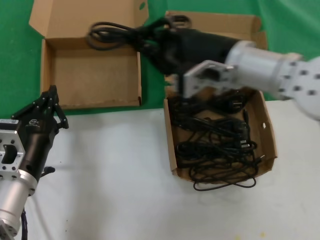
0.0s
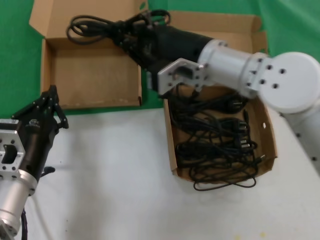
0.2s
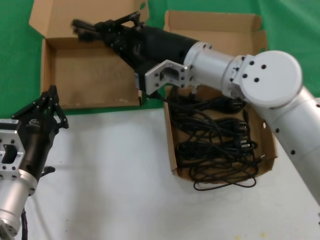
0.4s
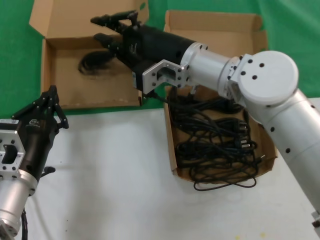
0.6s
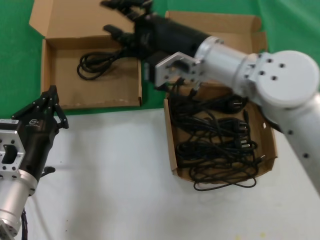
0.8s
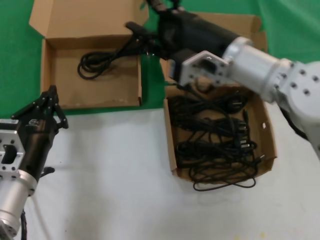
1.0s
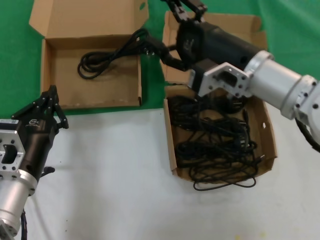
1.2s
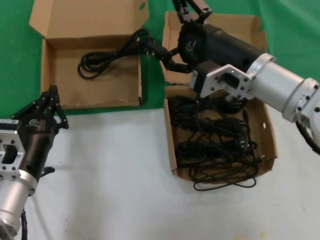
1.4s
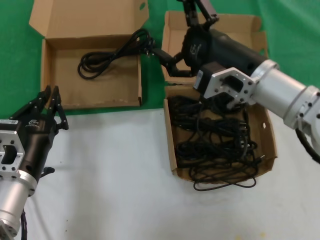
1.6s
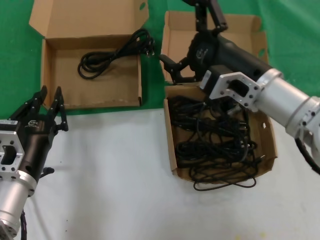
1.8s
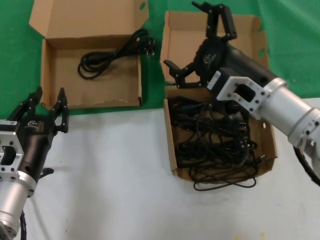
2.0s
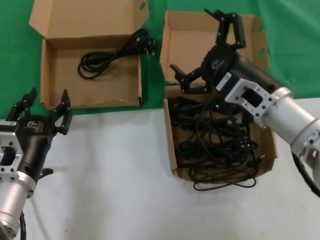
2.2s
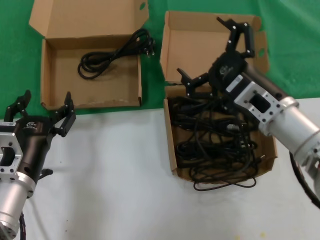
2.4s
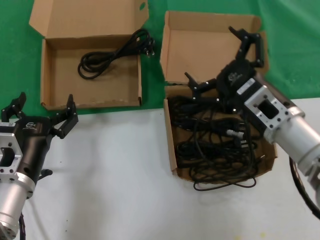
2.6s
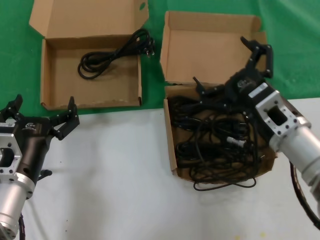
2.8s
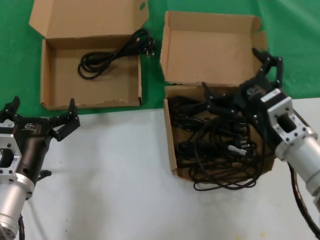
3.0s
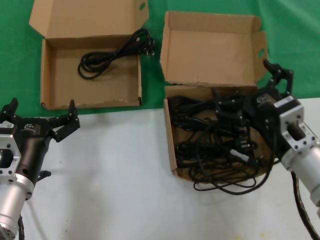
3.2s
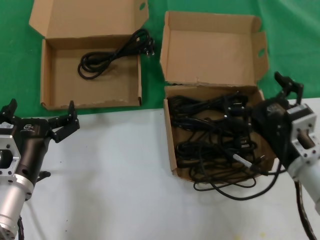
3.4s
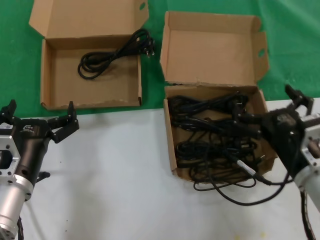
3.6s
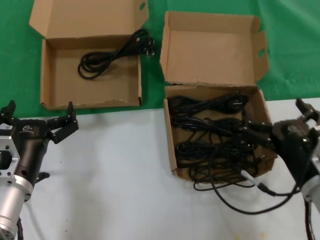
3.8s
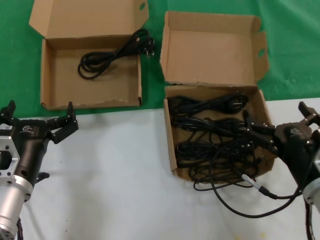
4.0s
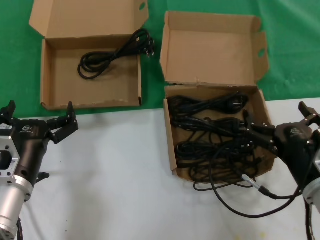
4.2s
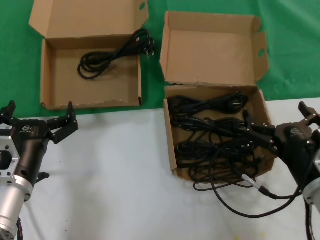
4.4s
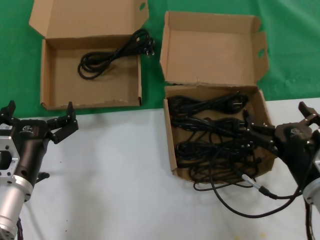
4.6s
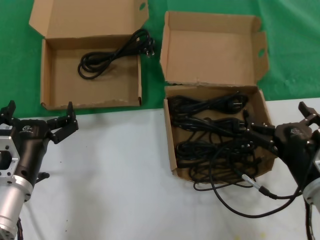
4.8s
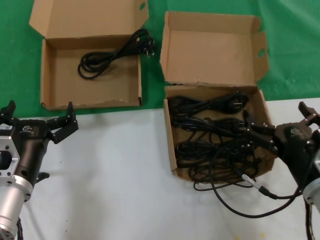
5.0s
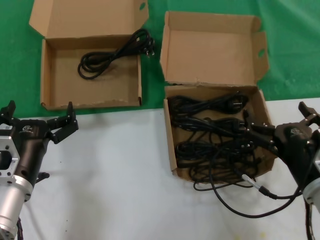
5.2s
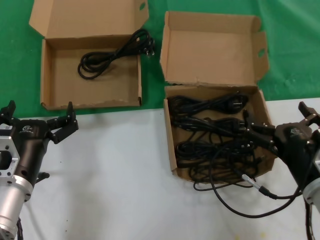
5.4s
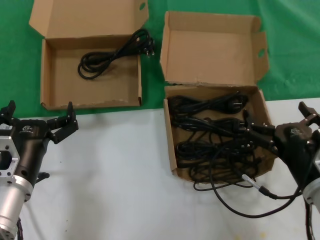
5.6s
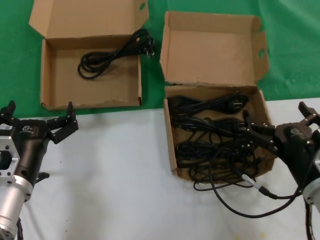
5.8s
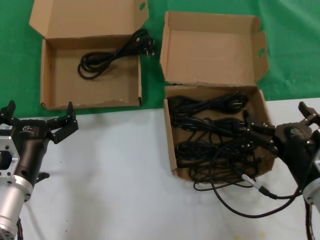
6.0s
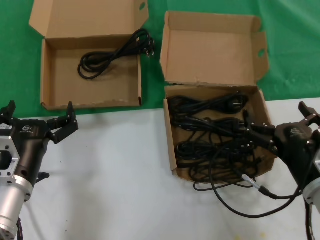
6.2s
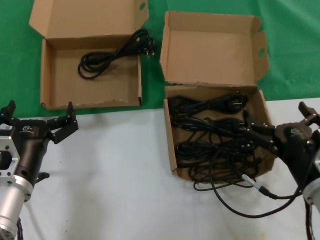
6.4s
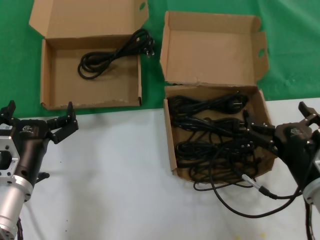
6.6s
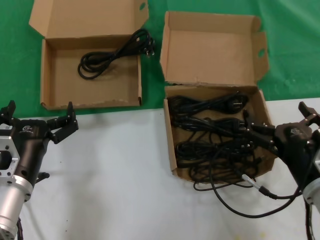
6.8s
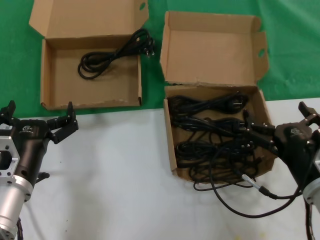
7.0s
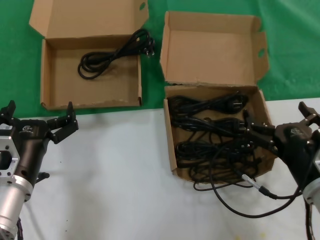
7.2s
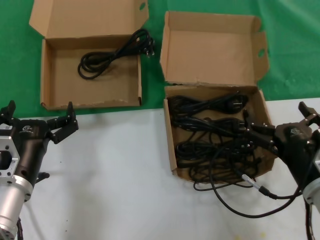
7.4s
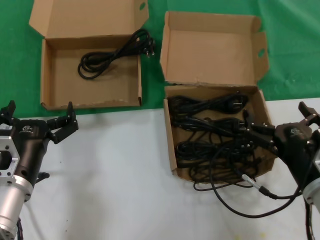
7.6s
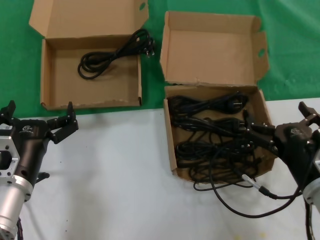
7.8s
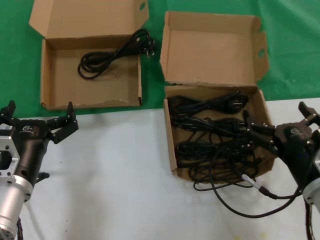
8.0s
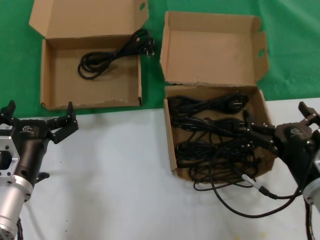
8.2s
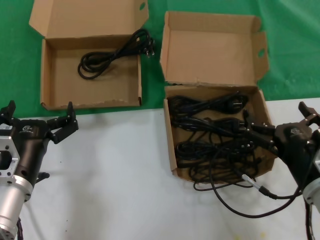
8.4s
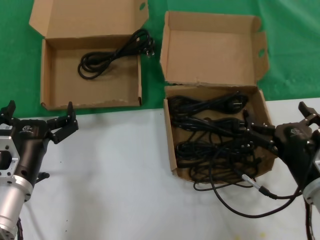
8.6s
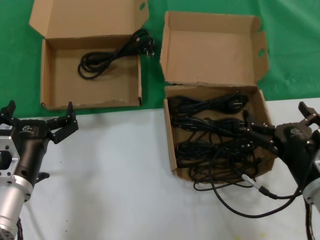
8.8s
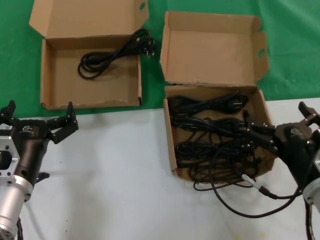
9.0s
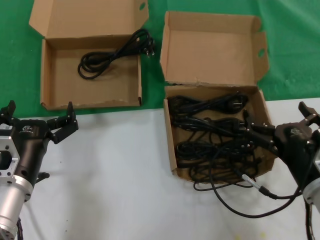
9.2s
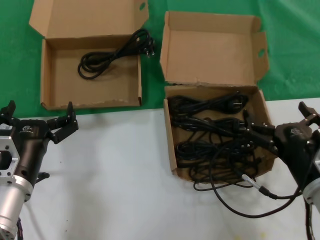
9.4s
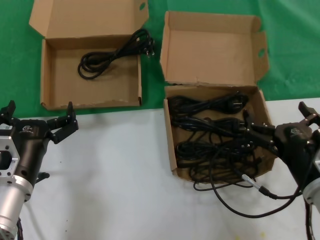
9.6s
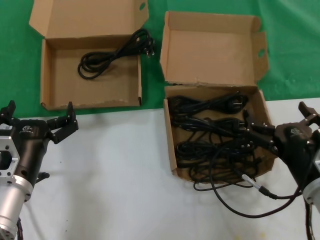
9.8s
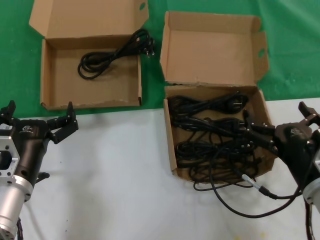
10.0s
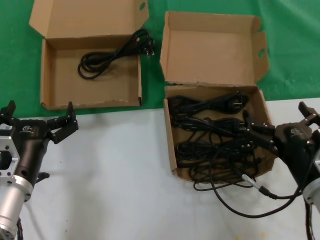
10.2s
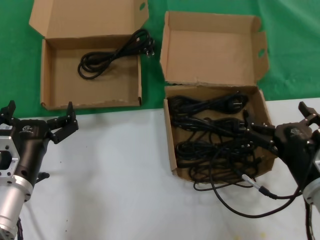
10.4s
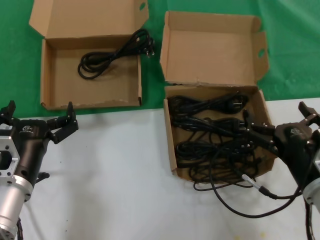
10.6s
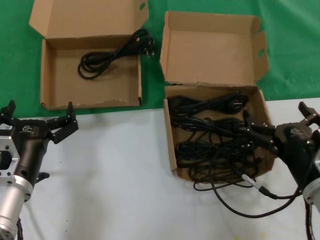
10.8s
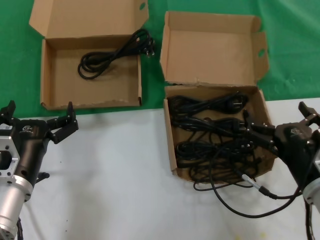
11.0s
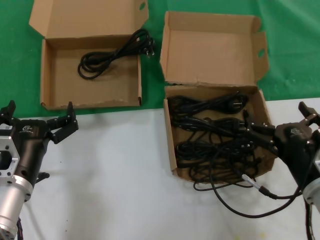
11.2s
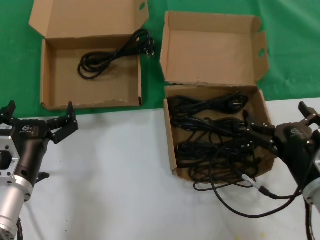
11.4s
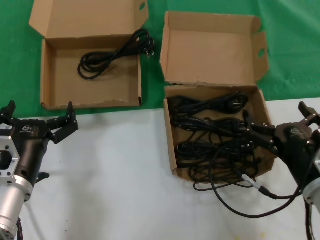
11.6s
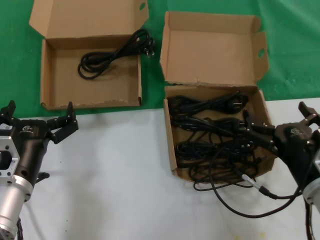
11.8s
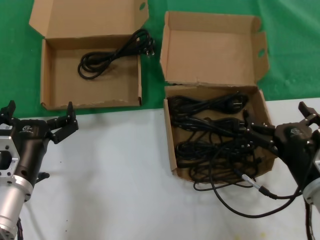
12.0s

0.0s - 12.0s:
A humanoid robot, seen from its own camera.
Task of the whole recording: take the parts from the box containing them and put them into an empty box.
0.0s - 1.6s: The right hand moves approximately 5 cm to the left and comes back.
1.6s - 3.0s: The right hand is displaced downward, backward and to the right by about 15 cm.
3.0s - 4.4s: The right hand goes approximately 10 cm downward and backward.
4.4s - 12.0s: The two hands keep their place.

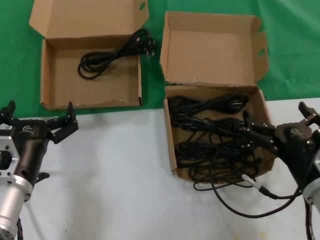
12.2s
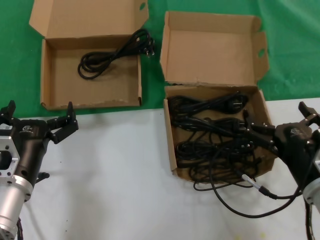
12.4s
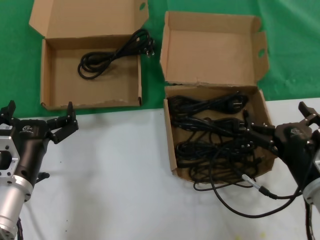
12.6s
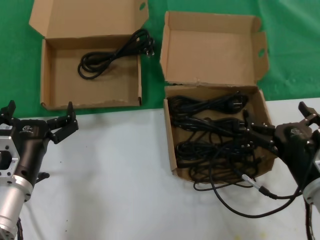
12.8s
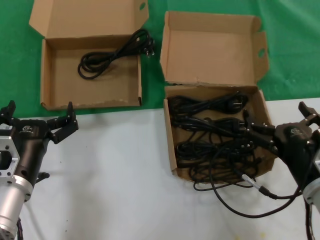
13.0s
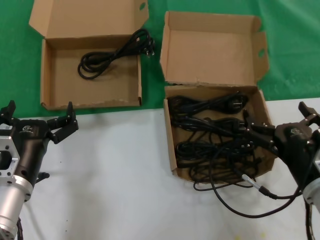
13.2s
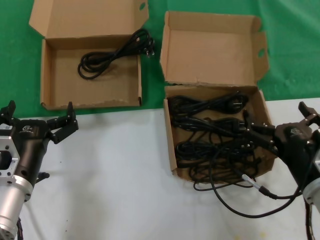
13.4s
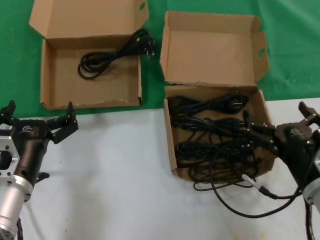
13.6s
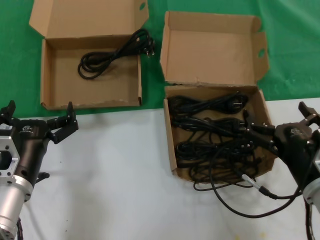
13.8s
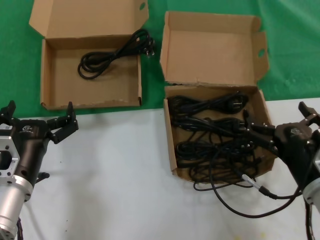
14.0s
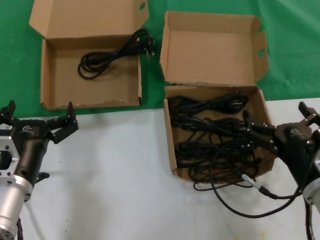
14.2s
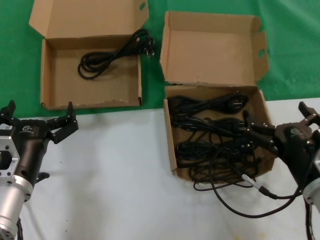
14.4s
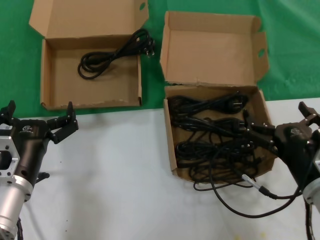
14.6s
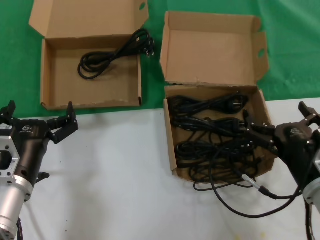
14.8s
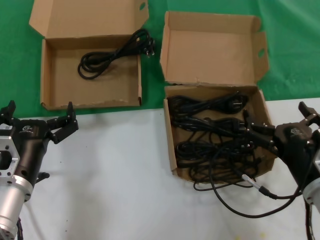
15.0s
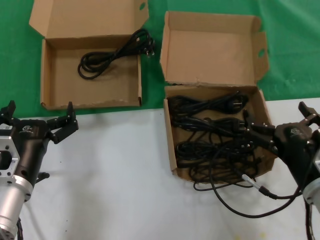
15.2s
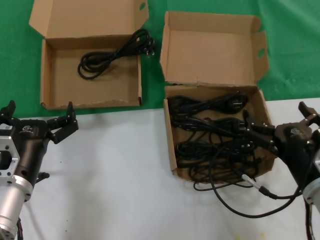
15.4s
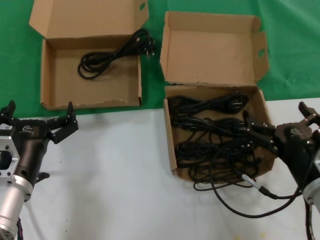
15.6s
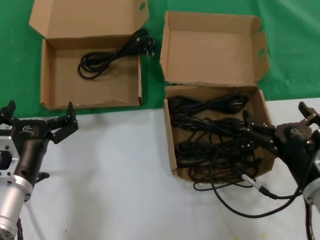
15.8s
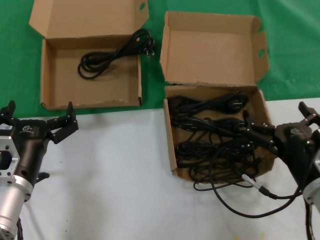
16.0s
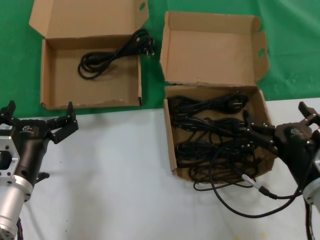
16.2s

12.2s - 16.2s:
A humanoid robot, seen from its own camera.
Task of the whole recording: take the parts from the box containing them and put them into an empty box.
12.2s - 16.2s: Both hands stay put.

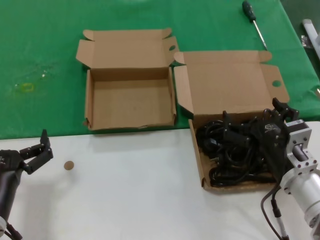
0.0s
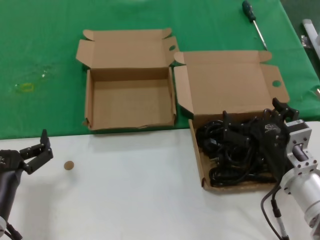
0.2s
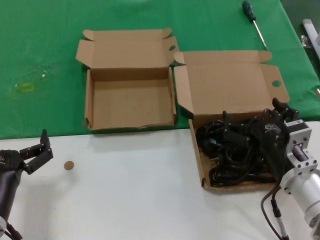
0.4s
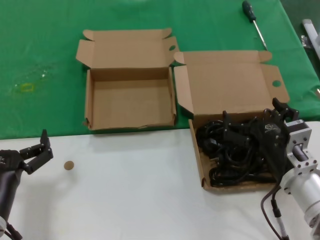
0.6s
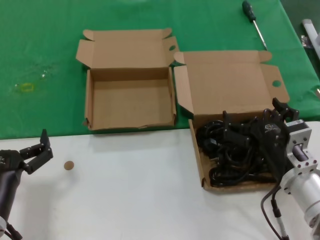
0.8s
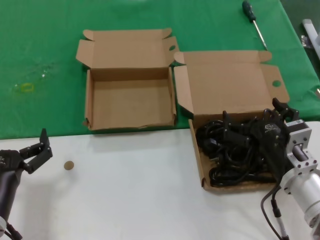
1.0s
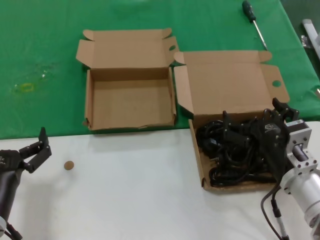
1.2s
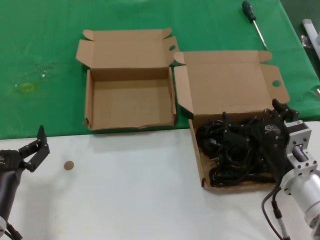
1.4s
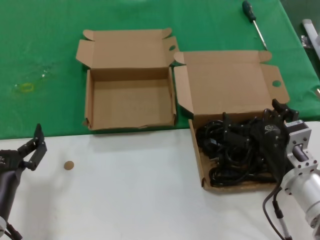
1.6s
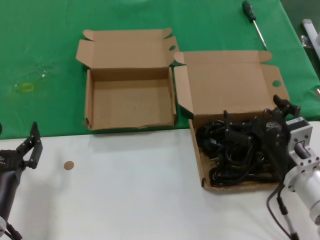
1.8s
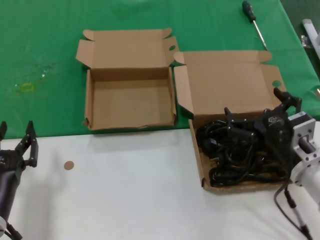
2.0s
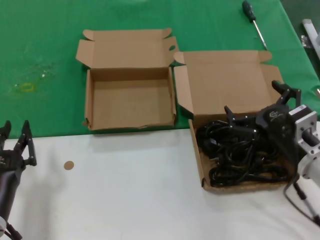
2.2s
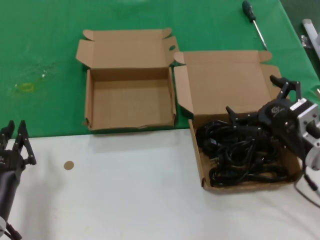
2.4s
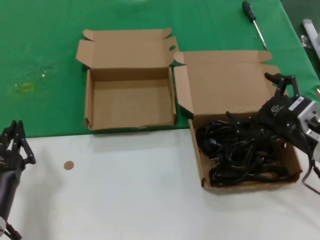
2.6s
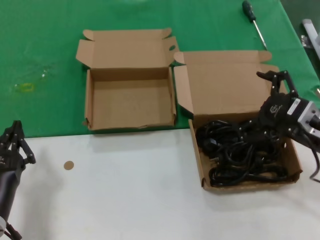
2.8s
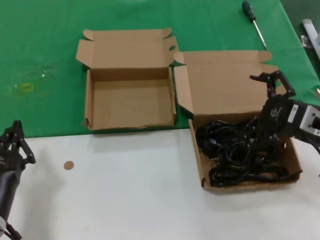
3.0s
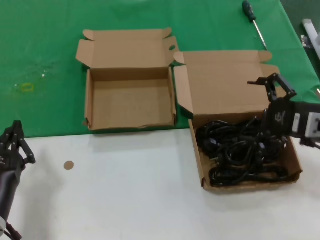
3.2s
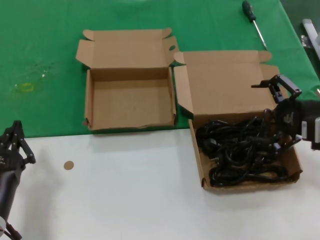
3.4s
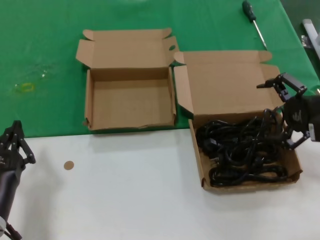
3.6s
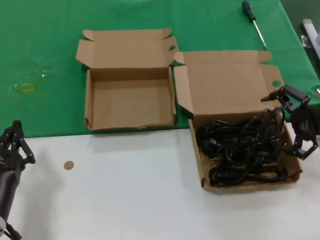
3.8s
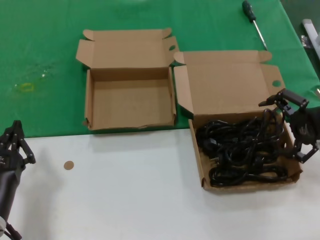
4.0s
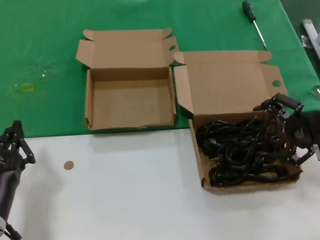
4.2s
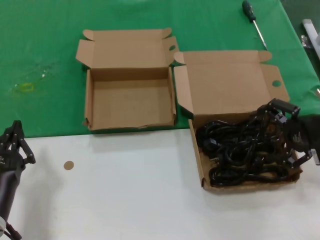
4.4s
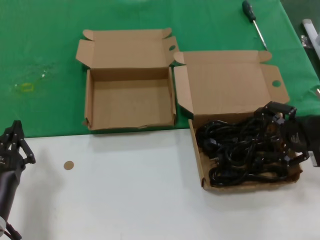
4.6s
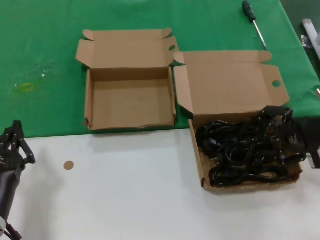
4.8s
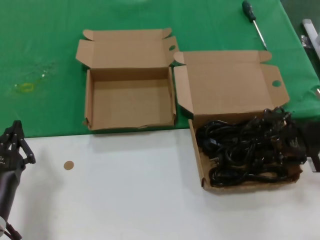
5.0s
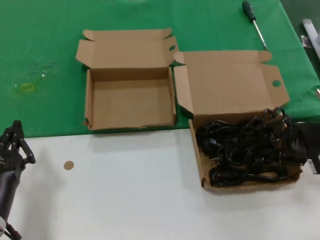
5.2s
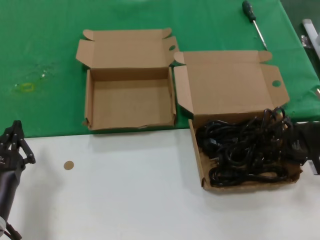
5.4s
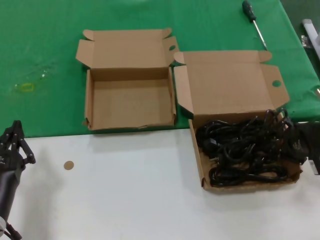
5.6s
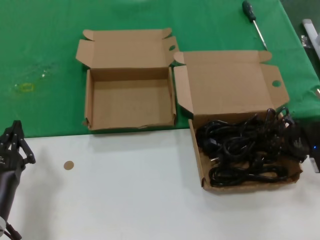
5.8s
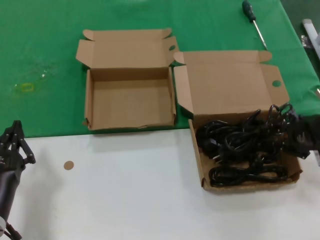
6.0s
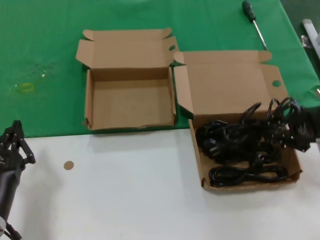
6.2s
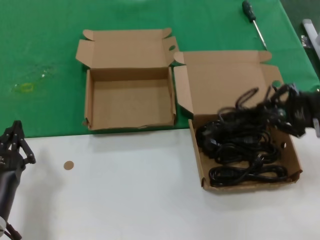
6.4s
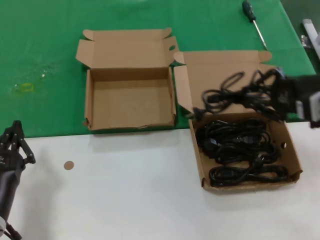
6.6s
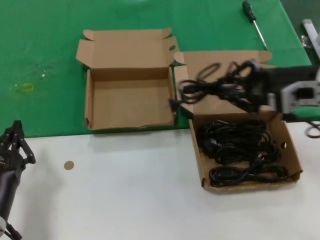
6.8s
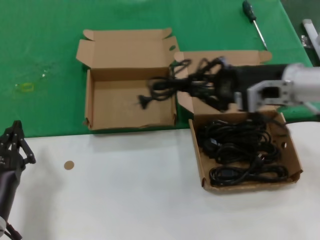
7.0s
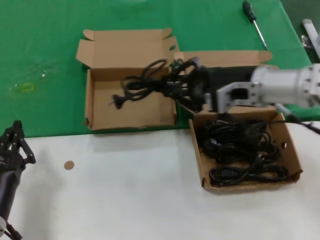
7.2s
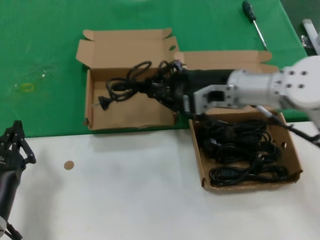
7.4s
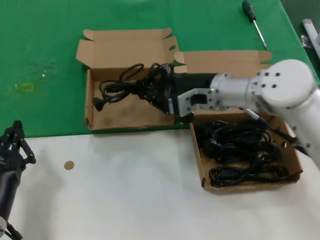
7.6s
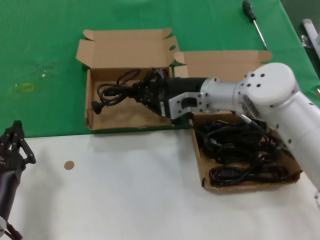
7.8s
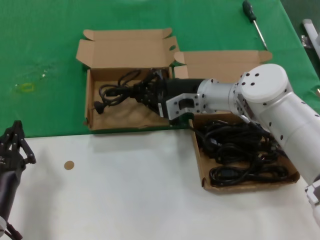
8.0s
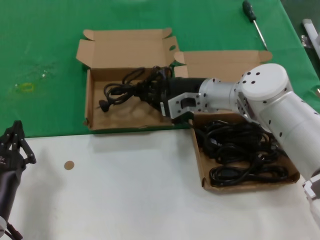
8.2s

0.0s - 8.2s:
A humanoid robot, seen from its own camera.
Task of the whole recording: take the parts from the box containing them and put them into an empty box.
Step, 0.0s - 5.6s: Grasp the data cable.
0.0s - 1.6s: Both hands stay put.
1.6s - 3.2s: The right hand shifts roughly 15 cm to the right, upward and forward.
5.0s - 6.6s: The right hand travels upward by roughly 5 cm.
6.6s - 8.2s: The right hand shifts about 25 cm to the left, forward and downward.
